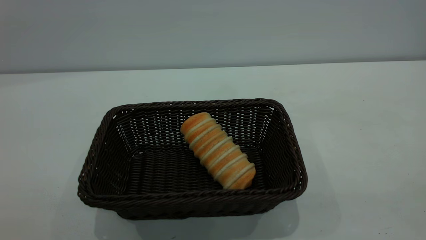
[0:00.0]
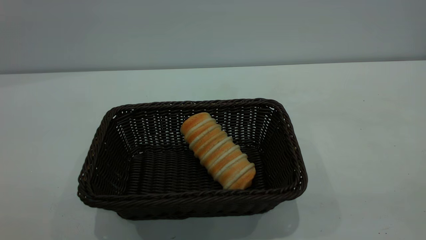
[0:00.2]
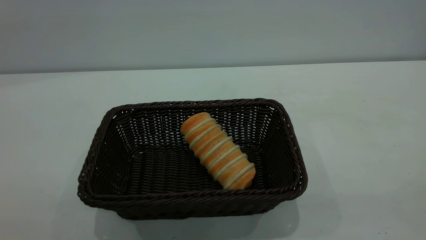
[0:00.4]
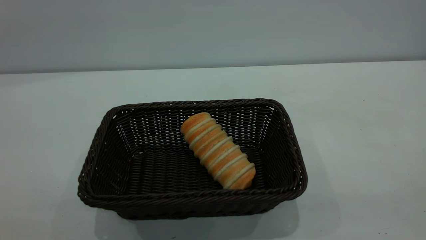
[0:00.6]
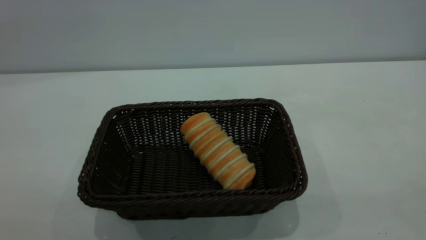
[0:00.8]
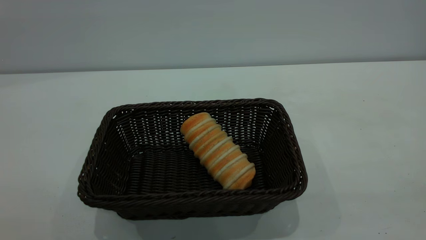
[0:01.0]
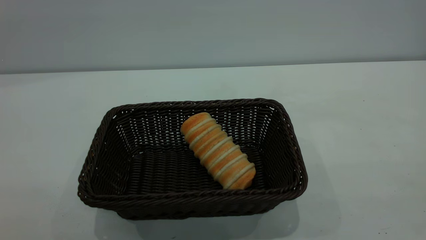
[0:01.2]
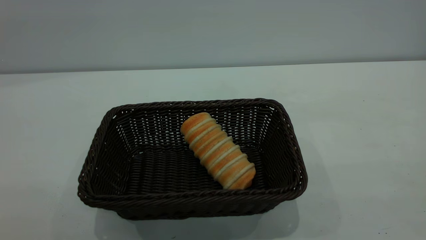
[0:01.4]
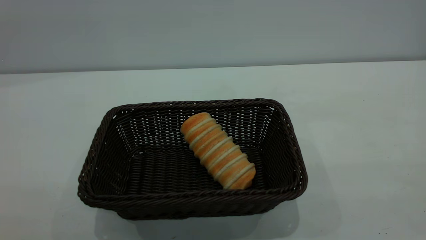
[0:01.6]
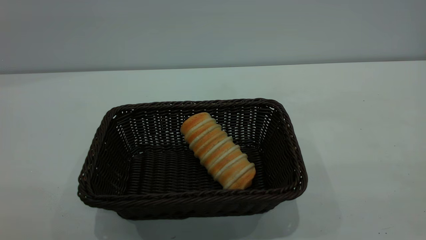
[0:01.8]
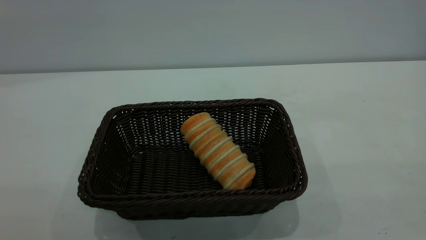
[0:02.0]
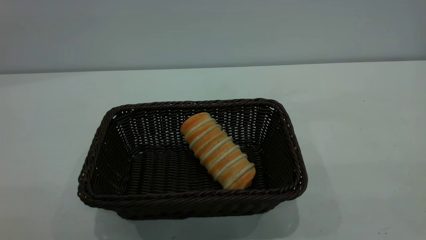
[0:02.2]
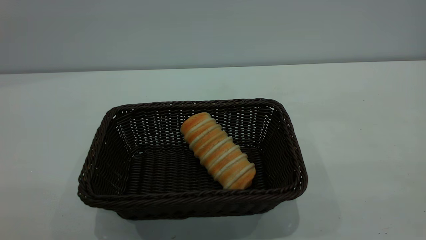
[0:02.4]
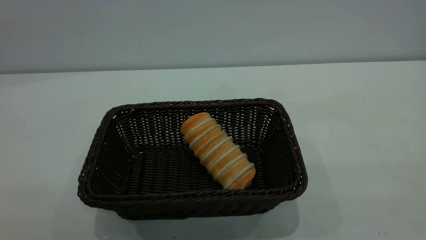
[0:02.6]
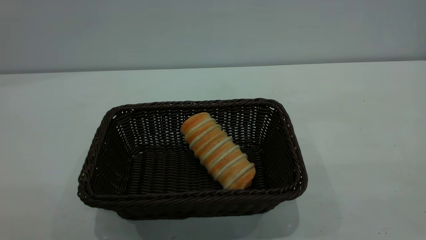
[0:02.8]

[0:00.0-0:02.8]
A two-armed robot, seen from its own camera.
Task of the whole recording: One hand grasps the black basket and places it in the middle of the table, while the other hand picks up the long bread and puts it into the black basket.
0:01.4 to 0:02.8: Neither gripper changes place.
